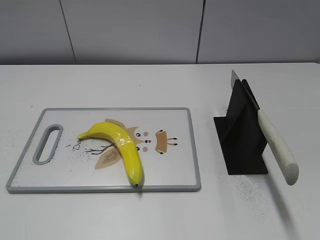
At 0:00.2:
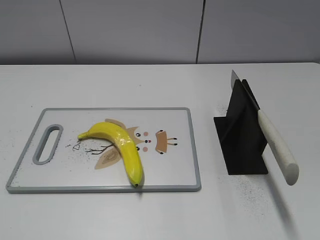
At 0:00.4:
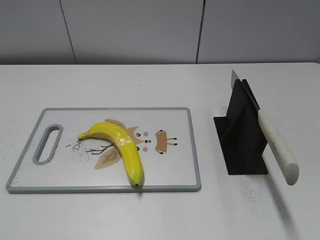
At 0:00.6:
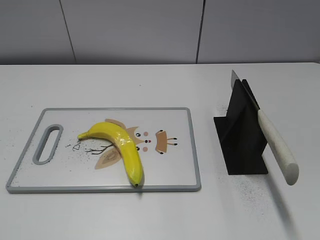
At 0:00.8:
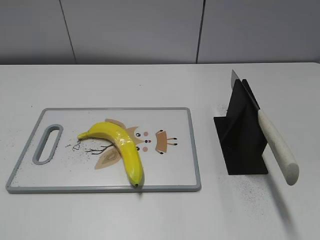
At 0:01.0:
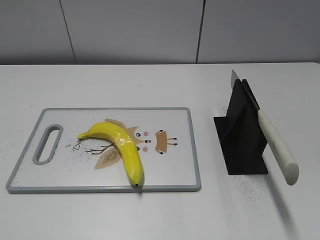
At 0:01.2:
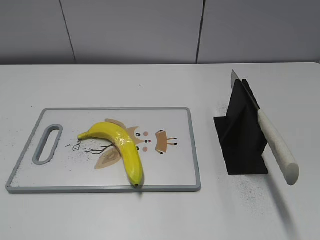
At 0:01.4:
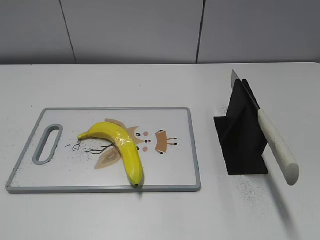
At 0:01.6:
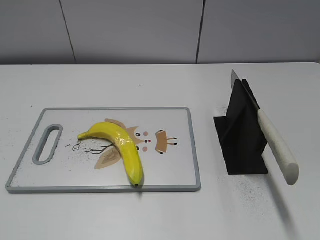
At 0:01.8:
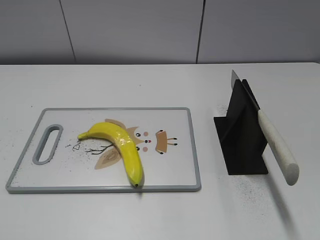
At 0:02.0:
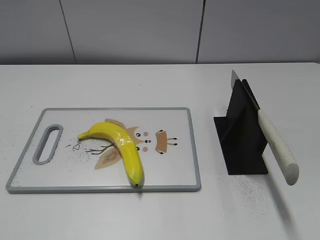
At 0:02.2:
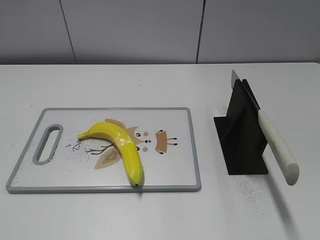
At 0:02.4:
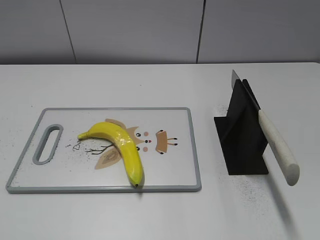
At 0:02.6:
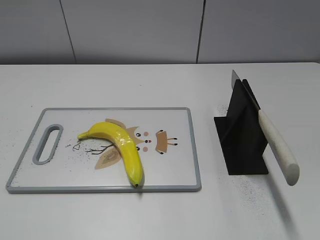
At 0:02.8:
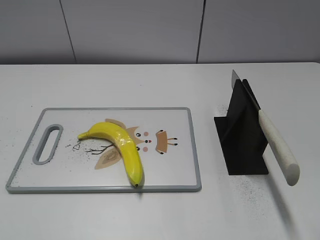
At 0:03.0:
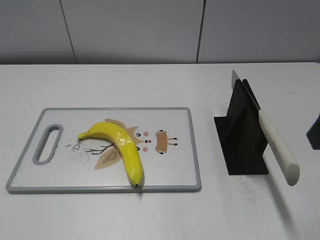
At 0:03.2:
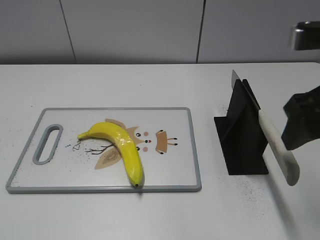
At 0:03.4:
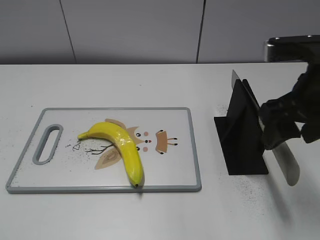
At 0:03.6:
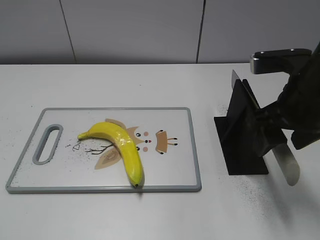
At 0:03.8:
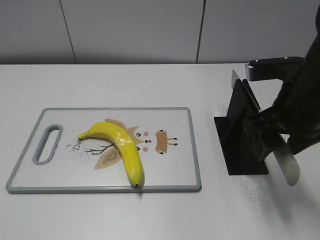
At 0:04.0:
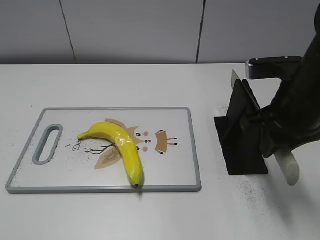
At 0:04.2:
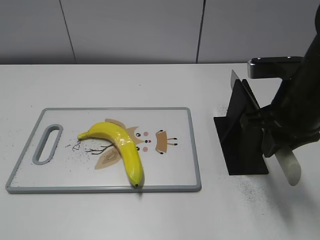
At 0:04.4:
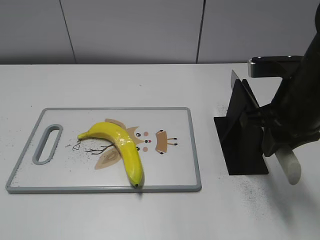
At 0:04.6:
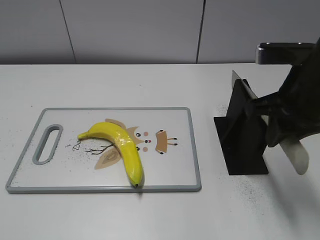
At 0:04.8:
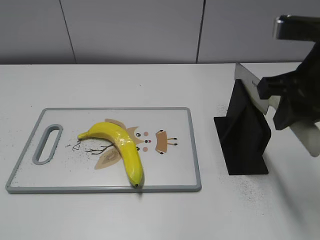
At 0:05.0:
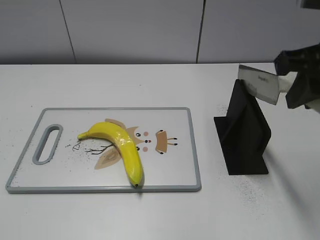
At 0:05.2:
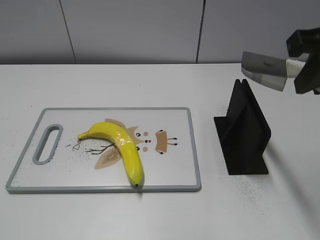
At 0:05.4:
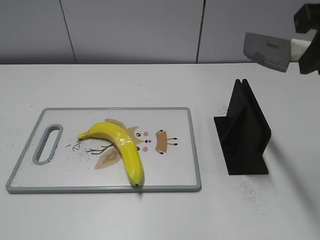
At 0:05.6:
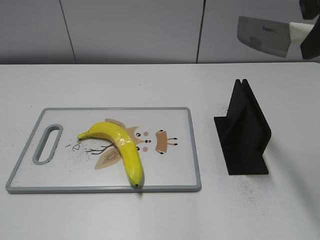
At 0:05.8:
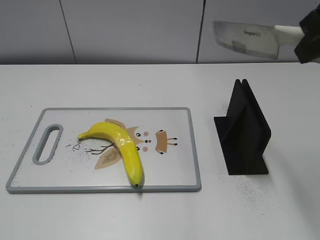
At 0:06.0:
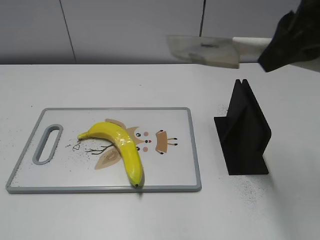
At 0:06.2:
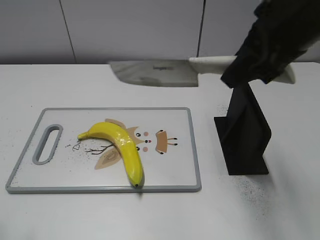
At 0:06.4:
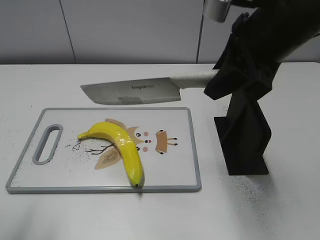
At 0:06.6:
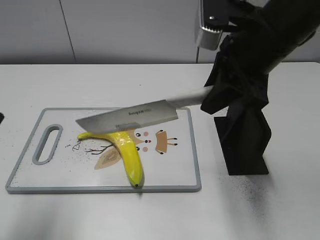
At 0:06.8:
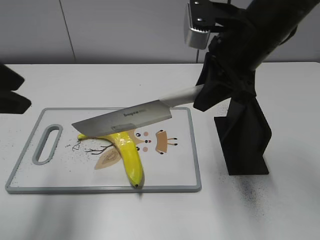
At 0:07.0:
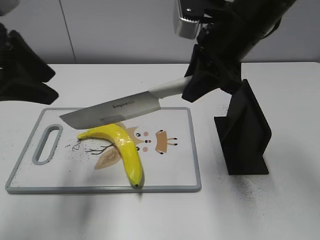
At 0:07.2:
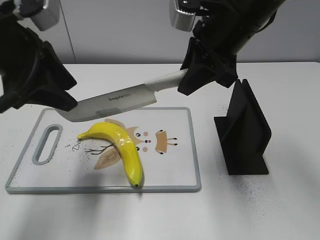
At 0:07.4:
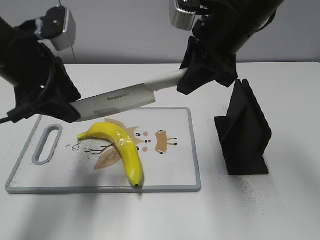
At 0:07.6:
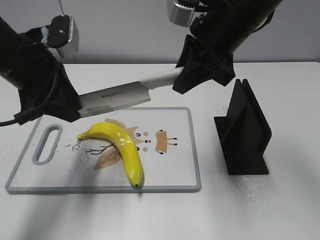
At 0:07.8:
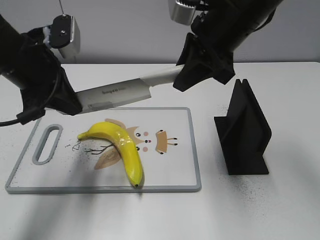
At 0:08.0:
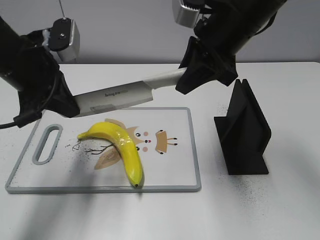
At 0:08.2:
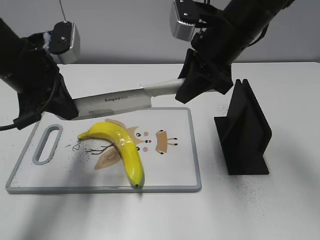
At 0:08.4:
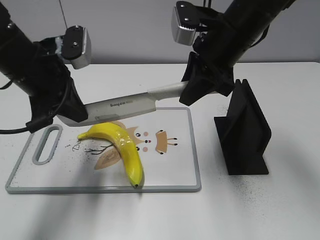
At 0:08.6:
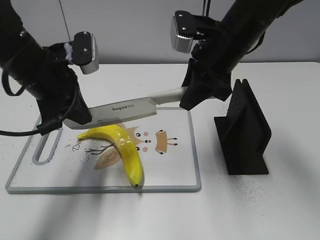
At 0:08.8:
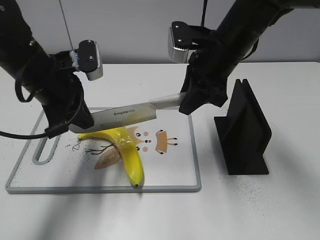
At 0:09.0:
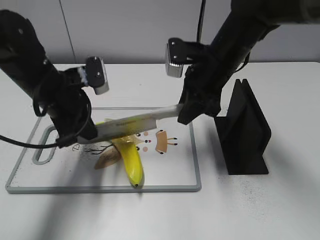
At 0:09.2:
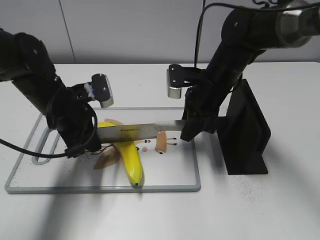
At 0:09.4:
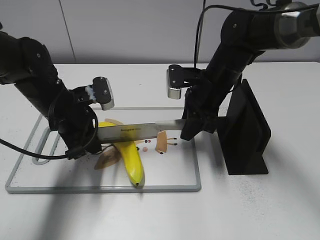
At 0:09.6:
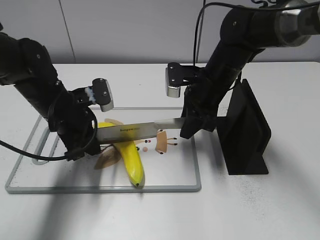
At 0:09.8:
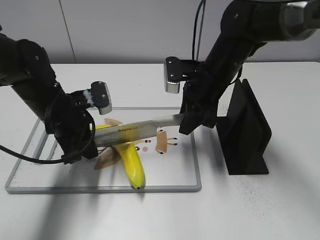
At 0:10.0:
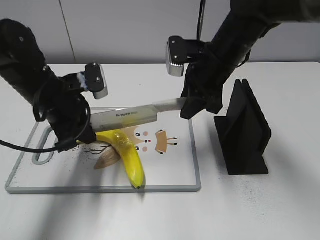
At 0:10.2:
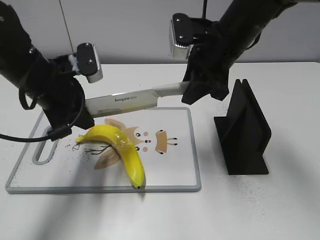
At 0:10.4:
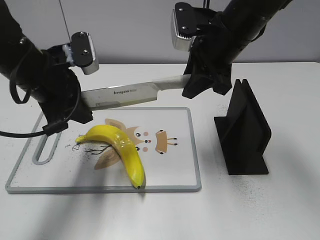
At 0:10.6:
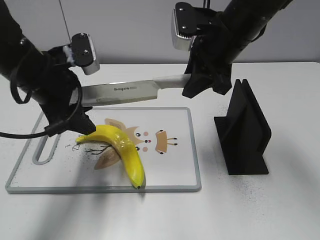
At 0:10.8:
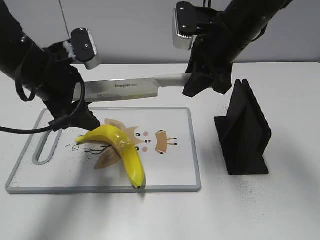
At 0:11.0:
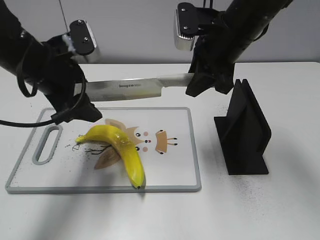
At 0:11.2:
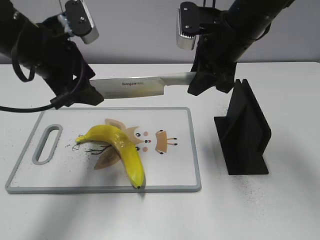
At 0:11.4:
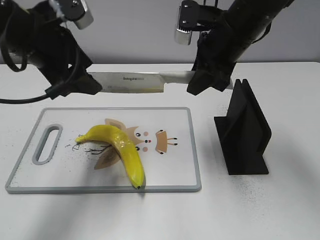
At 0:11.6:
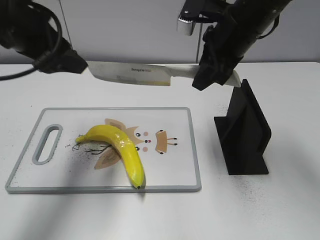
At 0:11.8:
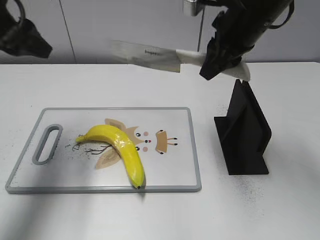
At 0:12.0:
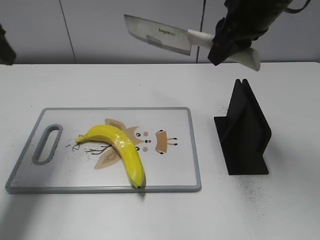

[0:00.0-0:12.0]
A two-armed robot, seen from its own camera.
Task of the whole recording: cut plastic banana.
Step, 0:00.0 to 0:05.2: Grab the knife handle with your right hand.
Step, 0:05.4 to 0:09.6: Lift the knife with your right hand.
Step, 0:09.8 to 0:11.4: Cut the banana with your right hand.
0:01.6 to 0:03.0: The right gripper heads forward and to the left, covering approximately 20 cm.
0:03.0 to 0:04.4: The right gripper goes roughly 10 cm downward and forward, and closes.
0:04.4 to 0:06.0: The right gripper shifts approximately 10 cm upward.
0:06.0 to 0:07.6: The left gripper shifts roughly 30 cm forward and to the right; the right gripper shifts approximately 15 cm forward, to the left and downward.
0:07.6 to 0:09.0: The grippers both shift downward by about 10 cm. The left gripper closes its fingers.
0:09.0 to 0:10.4: The right gripper heads upward, covering roughly 5 cm. The left gripper shifts by some 5 cm.
0:10.4 to 0:12.0: The left gripper heads to the left and upward, covering some 15 cm, and opens its fingers, while the right gripper travels upward by about 5 cm.

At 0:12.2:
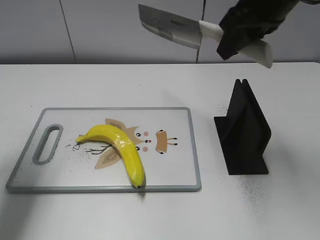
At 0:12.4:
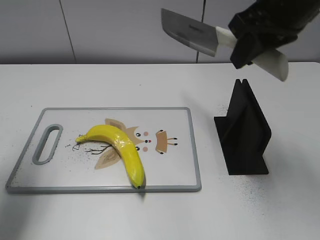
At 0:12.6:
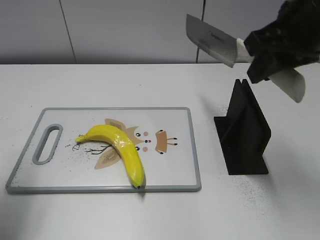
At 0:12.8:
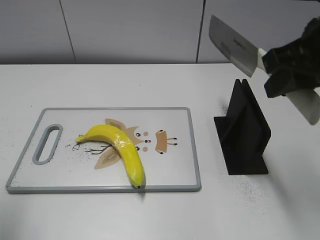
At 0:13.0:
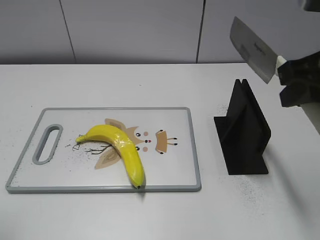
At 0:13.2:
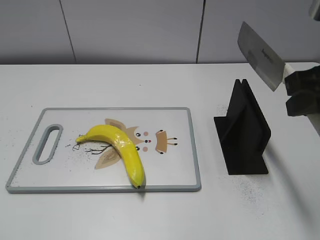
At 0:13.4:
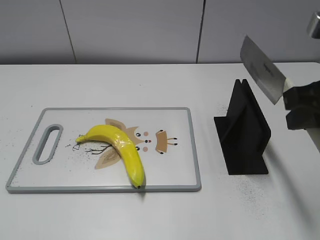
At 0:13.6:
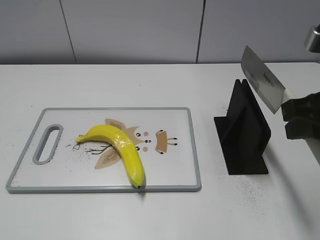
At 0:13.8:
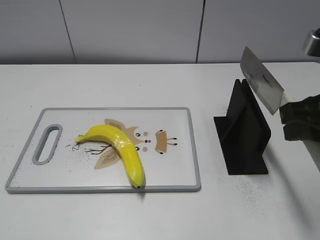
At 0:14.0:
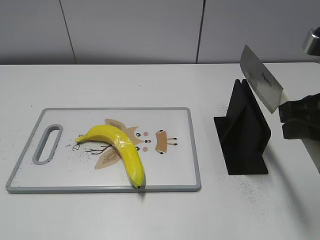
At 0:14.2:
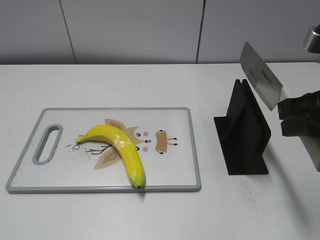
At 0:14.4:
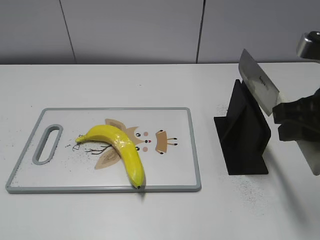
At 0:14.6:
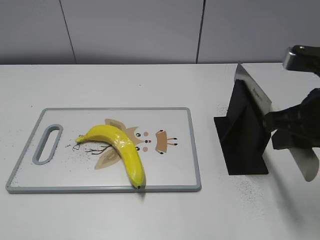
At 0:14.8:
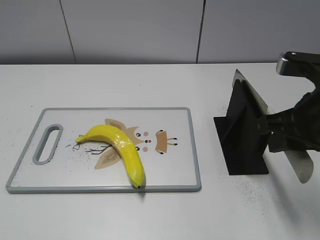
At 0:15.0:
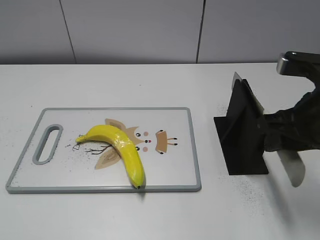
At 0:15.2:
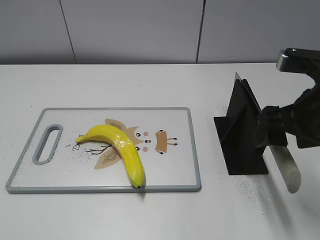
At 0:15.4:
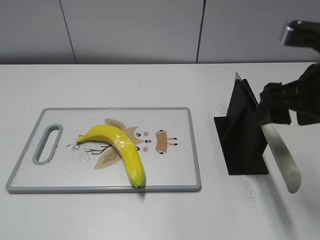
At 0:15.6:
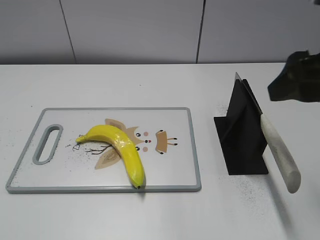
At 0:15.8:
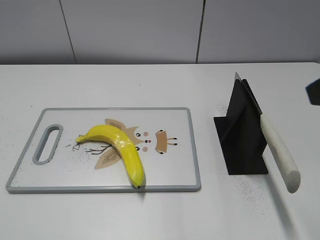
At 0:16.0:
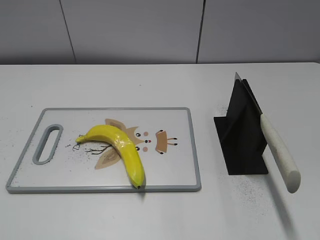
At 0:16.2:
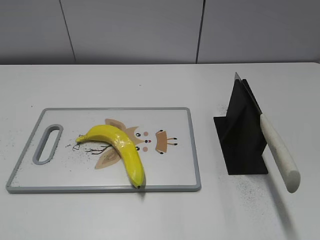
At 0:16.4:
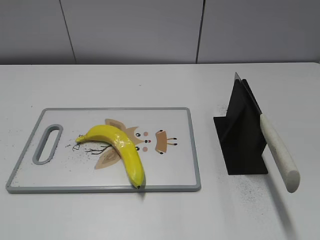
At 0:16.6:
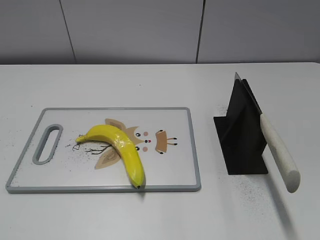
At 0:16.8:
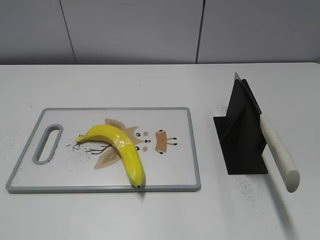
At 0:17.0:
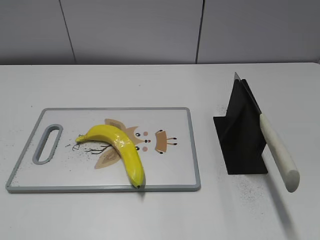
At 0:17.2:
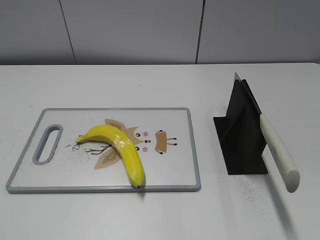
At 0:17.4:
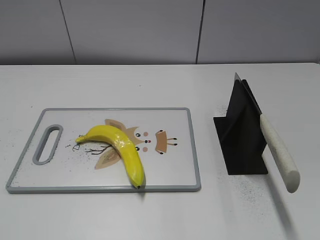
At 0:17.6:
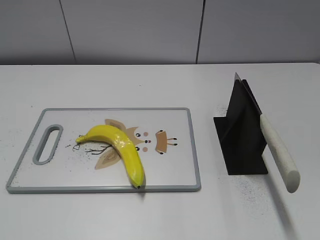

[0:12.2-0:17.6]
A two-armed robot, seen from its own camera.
Task of the whole recording: cut plastic banana.
Step, 0:13.0 to 0:17.6: Place the knife on the storage rack with your right hand.
0:12.2 to 0:13.6: The right gripper travels backward, to the right and downward by approximately 15 cm. The left gripper shifts roughly 30 cm backward.
0:13.6 to 0:15.0: The right gripper opens up.
0:15.0 to 0:16.2: The right gripper moves backward, upward and to the right, approximately 20 cm, and opens up.
